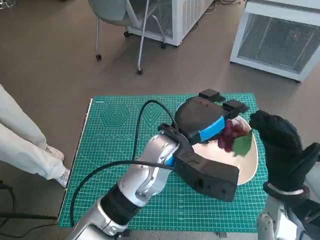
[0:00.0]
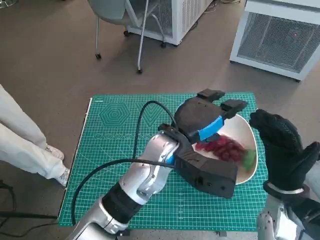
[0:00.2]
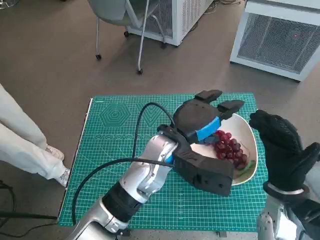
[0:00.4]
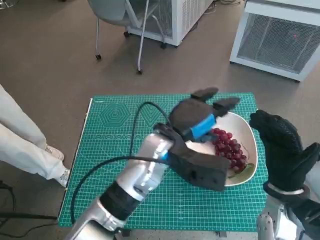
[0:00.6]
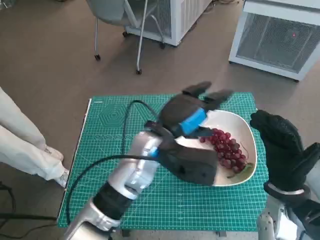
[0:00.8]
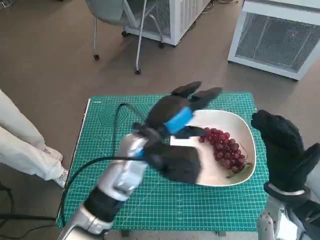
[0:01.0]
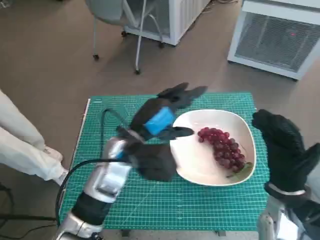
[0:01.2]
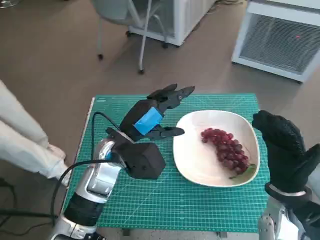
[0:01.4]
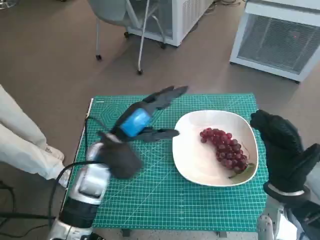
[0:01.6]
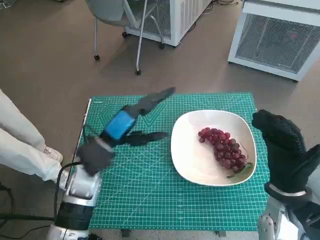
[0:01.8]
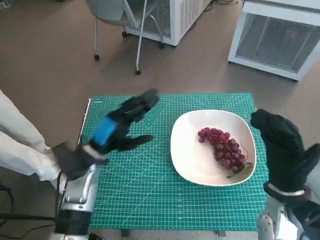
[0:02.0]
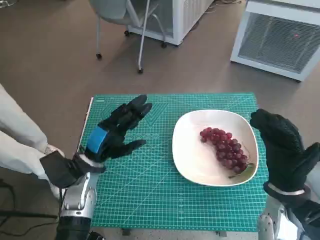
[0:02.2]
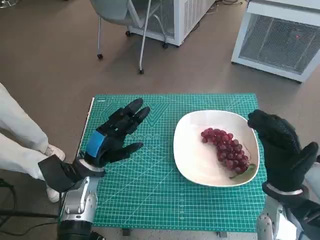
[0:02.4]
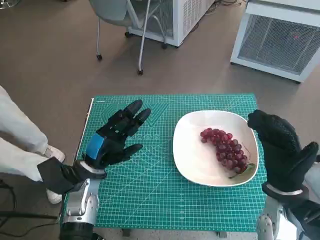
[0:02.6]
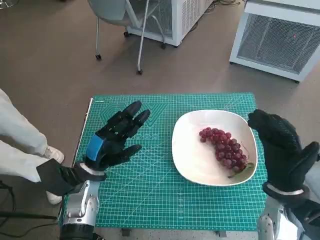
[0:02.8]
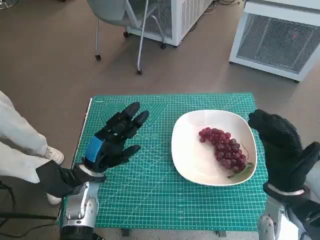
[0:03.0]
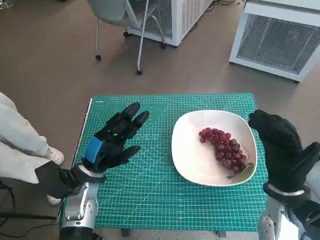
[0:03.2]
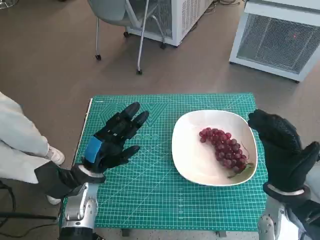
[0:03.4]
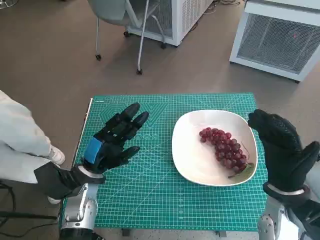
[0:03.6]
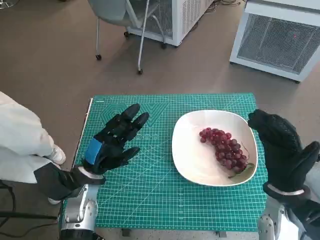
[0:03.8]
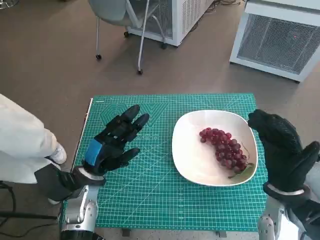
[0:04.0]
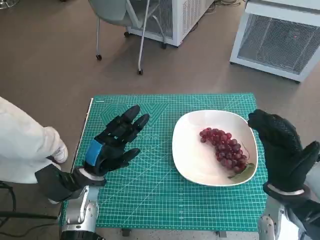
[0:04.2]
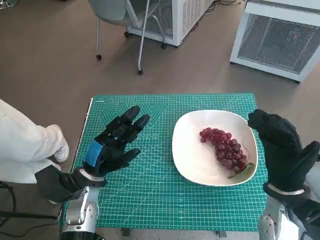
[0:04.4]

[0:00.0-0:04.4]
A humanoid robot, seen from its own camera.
Task of the whole recording: Pick up the grapes and put them on the plate.
0:00.0 to 0:01.4: The left hand heads to the left, covering roughly 10 cm.
0:01.4 to 0:03.0: The left hand is displaced to the left and downward by some 10 cm.
0:03.0 to 0:04.4: Both hands stay put.

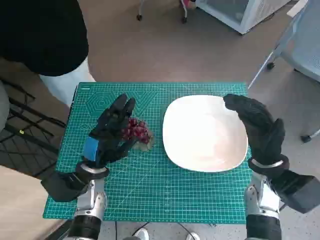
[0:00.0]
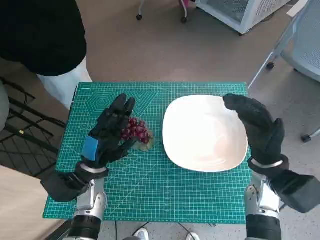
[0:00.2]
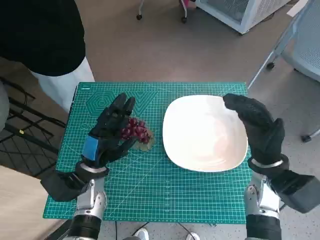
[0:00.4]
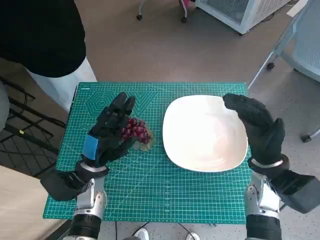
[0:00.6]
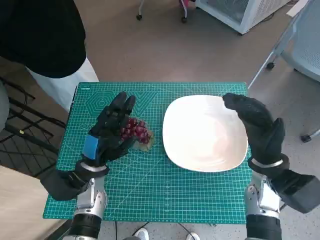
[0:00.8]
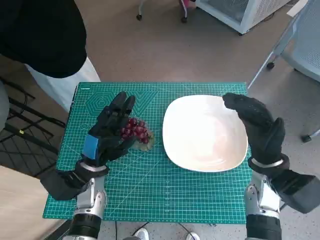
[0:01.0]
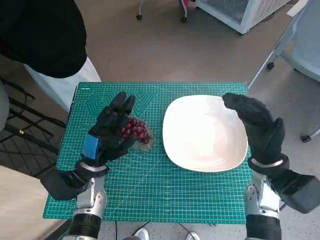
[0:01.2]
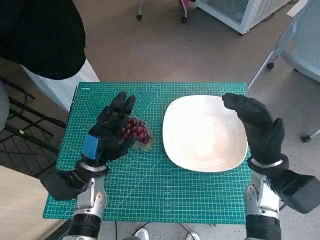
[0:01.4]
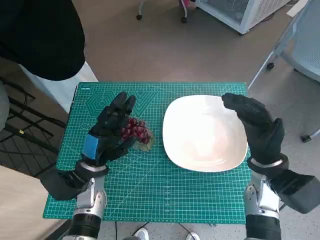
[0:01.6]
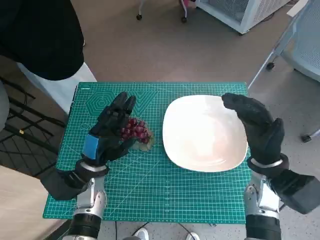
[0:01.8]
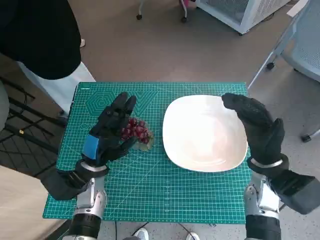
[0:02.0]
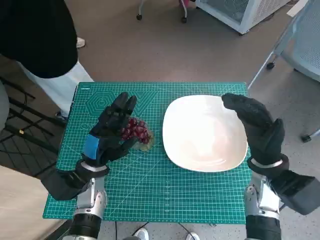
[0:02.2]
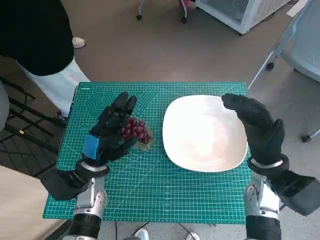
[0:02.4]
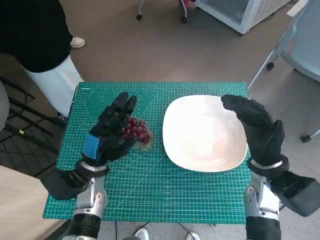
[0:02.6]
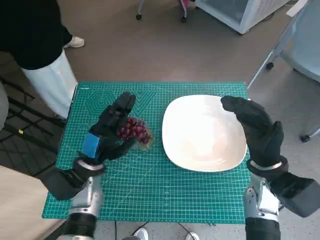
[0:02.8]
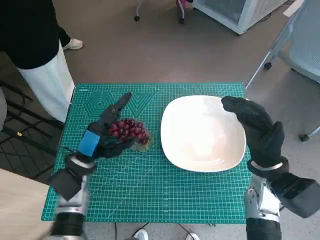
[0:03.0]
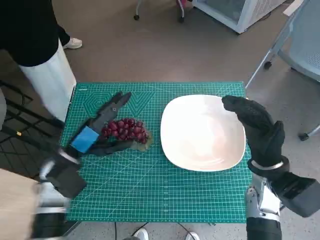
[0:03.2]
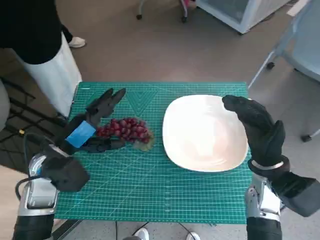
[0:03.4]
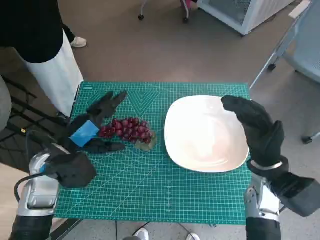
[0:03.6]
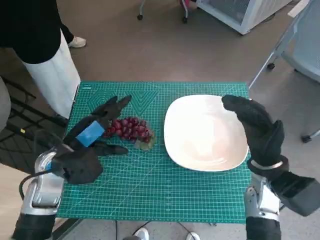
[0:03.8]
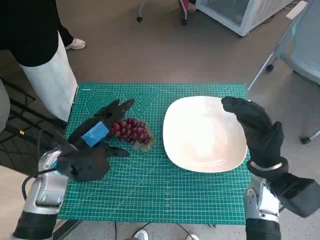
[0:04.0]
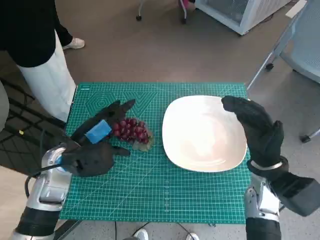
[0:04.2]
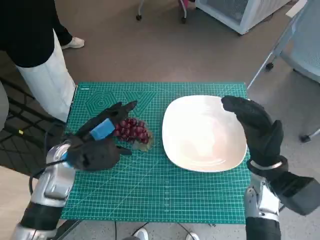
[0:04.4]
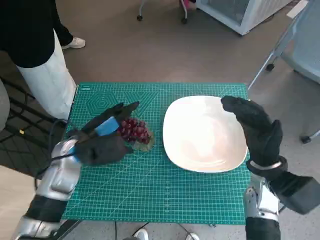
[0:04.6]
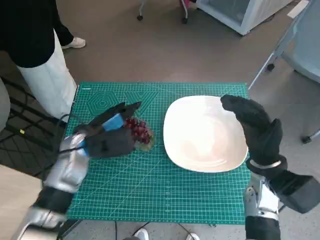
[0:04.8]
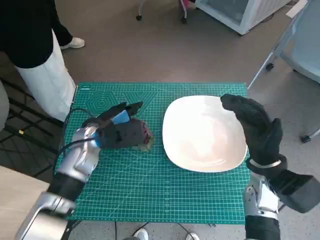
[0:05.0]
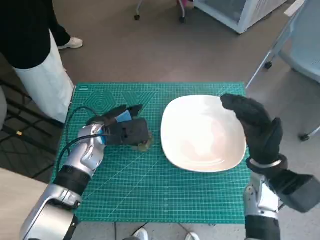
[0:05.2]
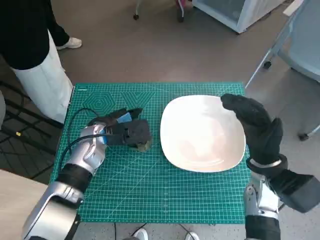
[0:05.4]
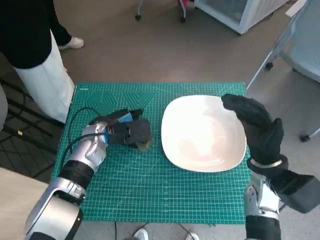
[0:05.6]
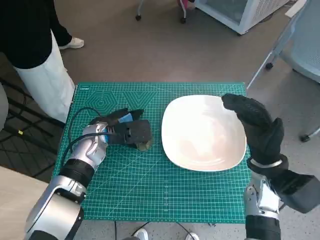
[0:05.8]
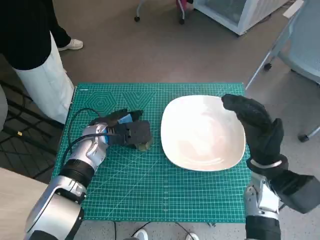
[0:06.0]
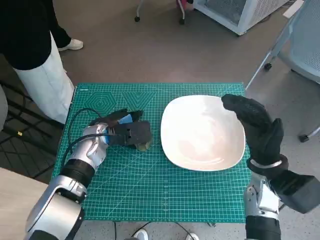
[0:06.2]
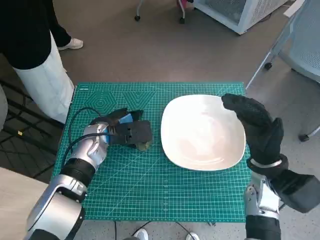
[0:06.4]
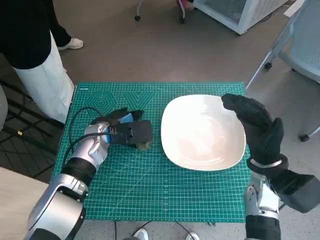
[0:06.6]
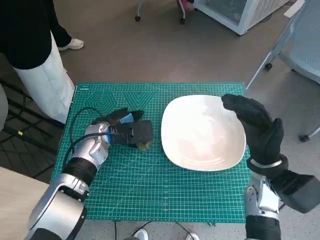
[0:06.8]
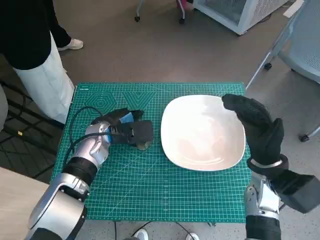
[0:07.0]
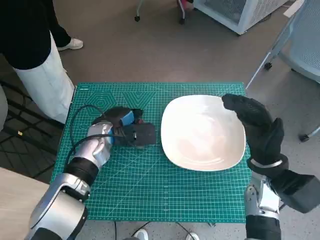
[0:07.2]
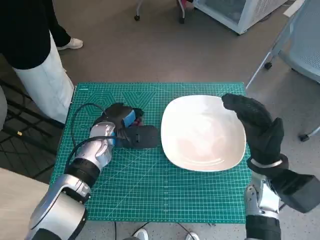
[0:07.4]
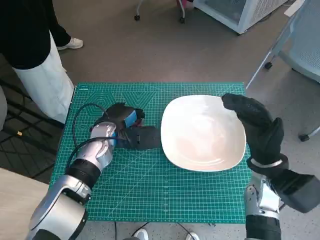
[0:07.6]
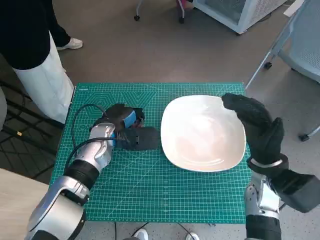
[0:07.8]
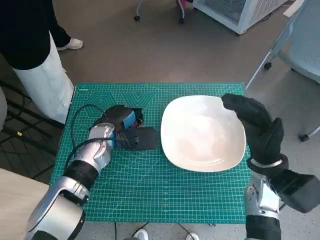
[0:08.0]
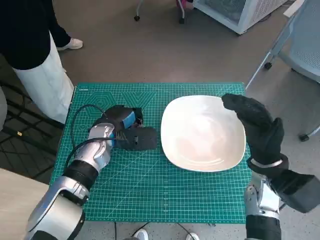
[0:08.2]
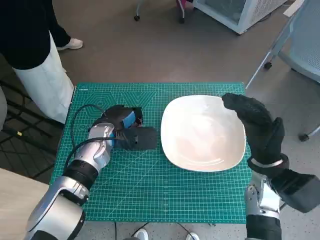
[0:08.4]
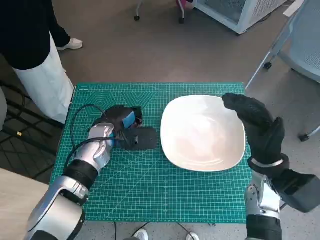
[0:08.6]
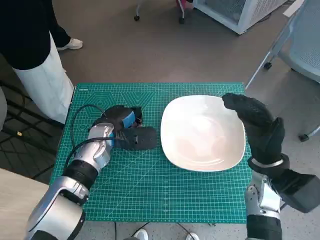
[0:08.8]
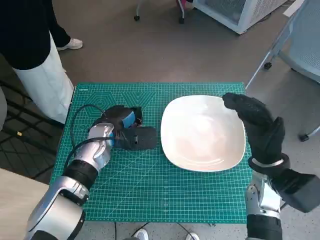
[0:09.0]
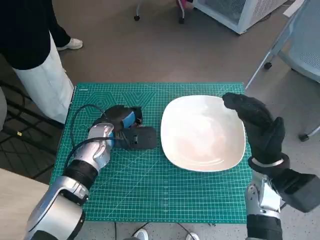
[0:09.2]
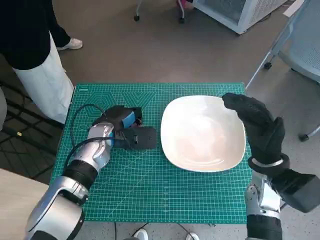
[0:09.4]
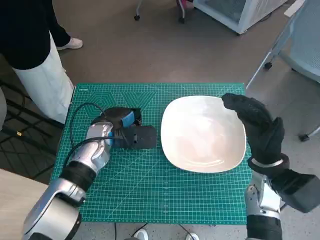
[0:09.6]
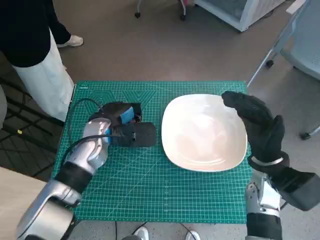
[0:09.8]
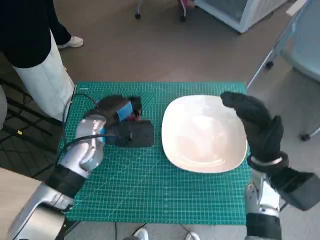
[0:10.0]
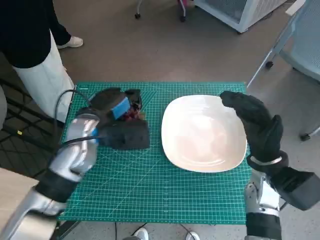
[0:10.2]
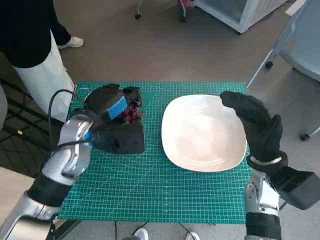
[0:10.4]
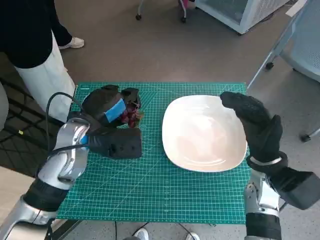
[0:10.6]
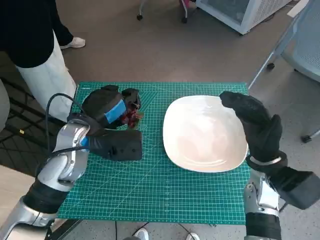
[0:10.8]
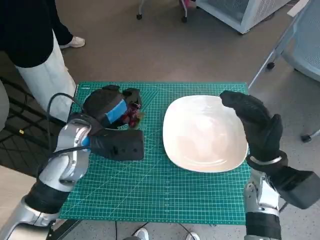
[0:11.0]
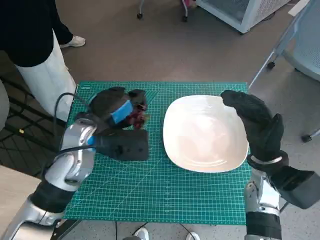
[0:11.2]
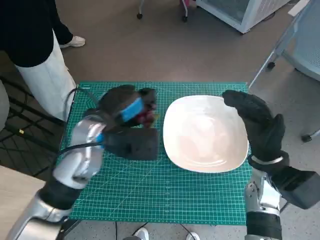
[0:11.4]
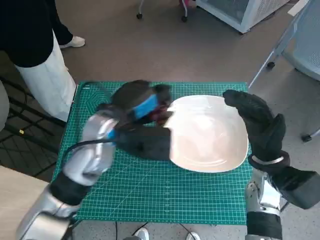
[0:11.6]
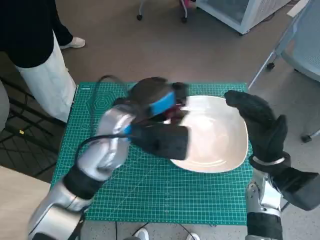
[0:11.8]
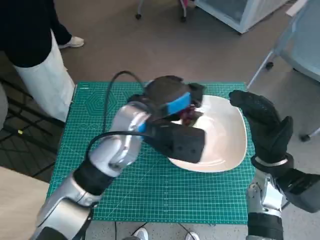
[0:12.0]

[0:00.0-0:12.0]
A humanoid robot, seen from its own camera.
Task of the whole recording: Pick up the grapes and put them on the plate.
Step, 0:00.0 to 0:07.6: Grasp the grapes with left hand.
0:01.6 to 0:03.0: The hands move only a little.
0:03.0 to 0:04.4: The left hand goes about 5 cm upward.
0:04.4 to 0:06.0: The left hand travels forward by some 5 cm.
0:06.0 to 0:07.6: The hands move only a little.
0:07.6 to 0:09.0: The two hands keep their place.
0:09.0 to 0:10.4: The left hand moves upward, some 5 cm.
0:10.4 to 0:12.0: The left hand moves to the right, about 10 cm.

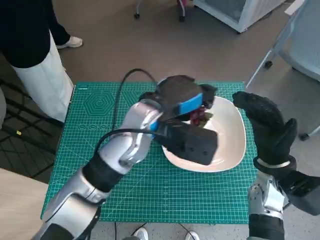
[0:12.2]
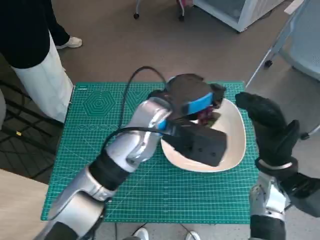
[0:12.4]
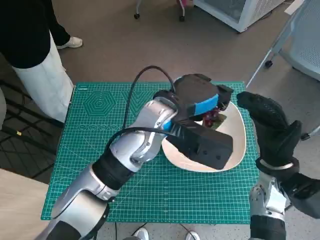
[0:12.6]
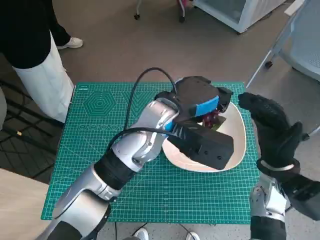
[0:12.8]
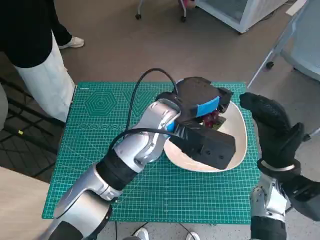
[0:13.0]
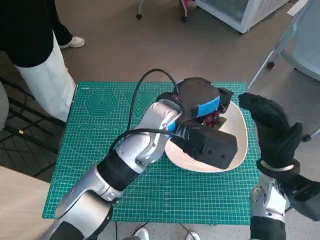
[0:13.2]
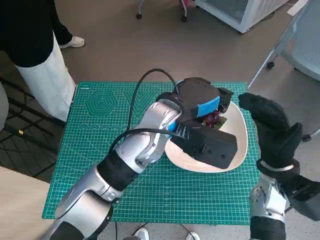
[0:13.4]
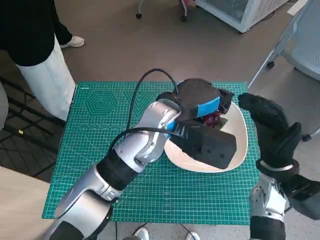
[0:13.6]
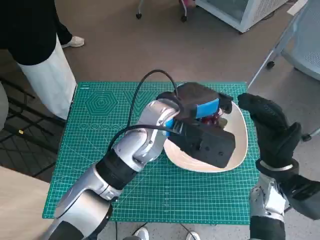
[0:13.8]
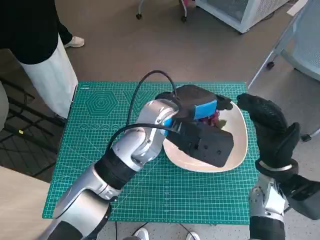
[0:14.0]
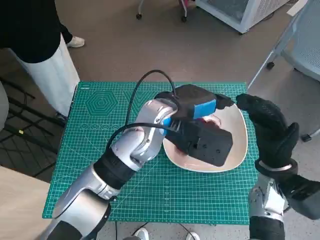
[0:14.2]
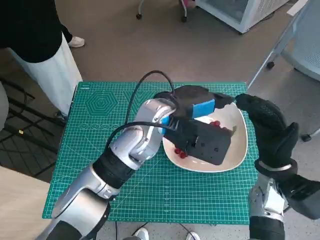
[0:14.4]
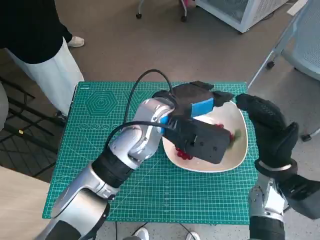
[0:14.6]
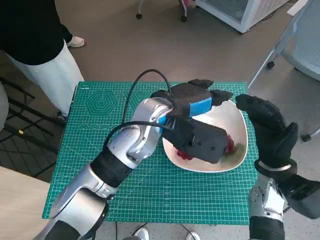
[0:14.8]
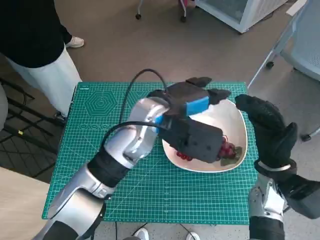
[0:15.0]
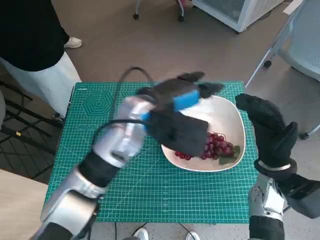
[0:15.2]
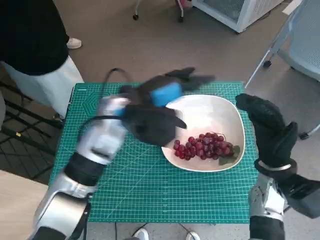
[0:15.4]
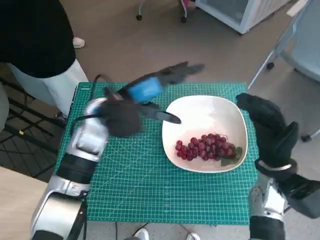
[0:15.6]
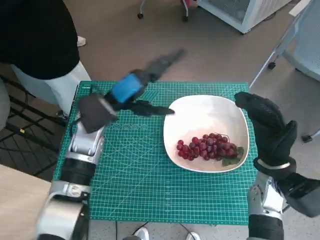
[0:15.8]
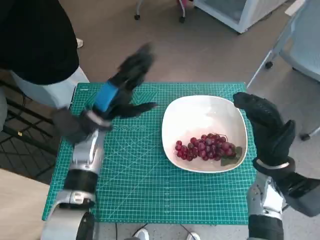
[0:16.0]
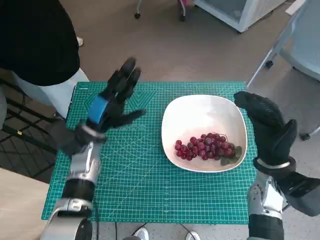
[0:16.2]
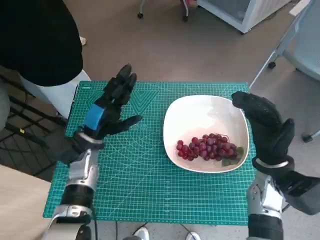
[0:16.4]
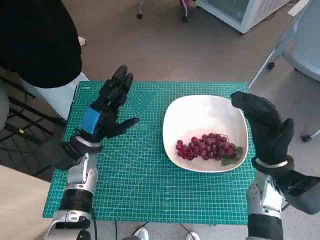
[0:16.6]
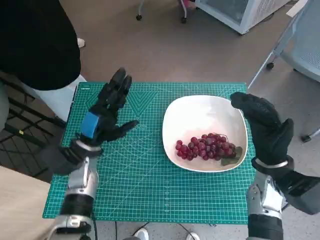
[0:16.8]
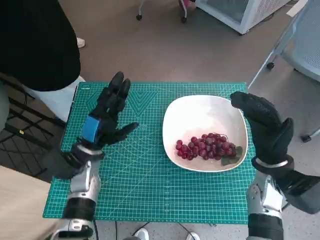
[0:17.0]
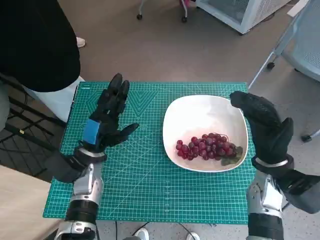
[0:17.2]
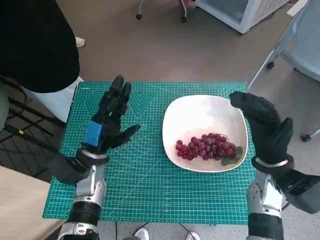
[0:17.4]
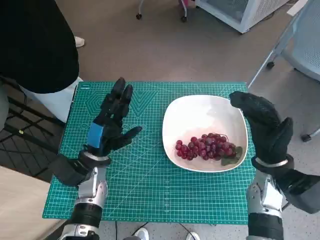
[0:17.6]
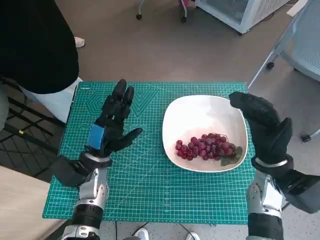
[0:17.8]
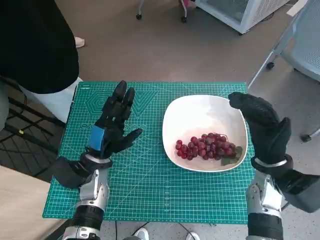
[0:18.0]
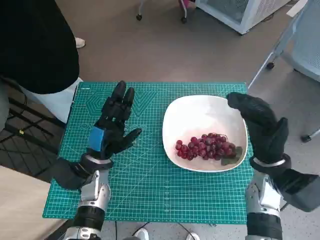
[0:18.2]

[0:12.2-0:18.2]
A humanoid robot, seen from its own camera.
Task of the whole recording: Pick up the grapes and put them on the plate.
Step, 0:12.2 to 0:14.2: Place the grapes in the plate with left hand.
0:15.2 to 0:16.6: The left hand goes some 20 cm to the left and downward.
0:16.6 to 0:18.2: The hands make only small movements.
